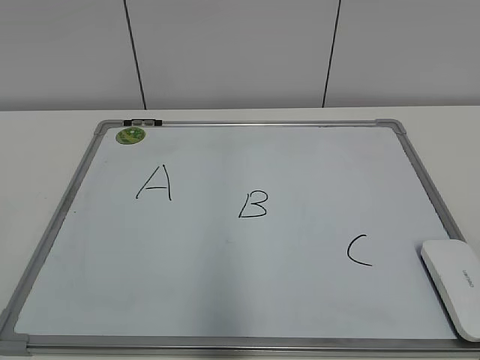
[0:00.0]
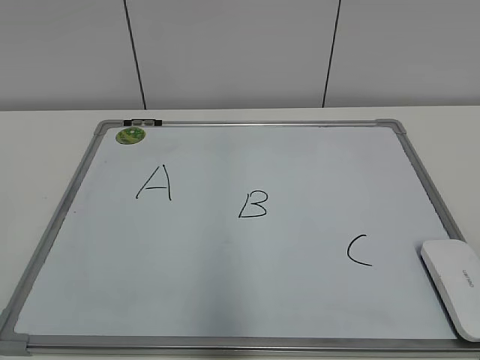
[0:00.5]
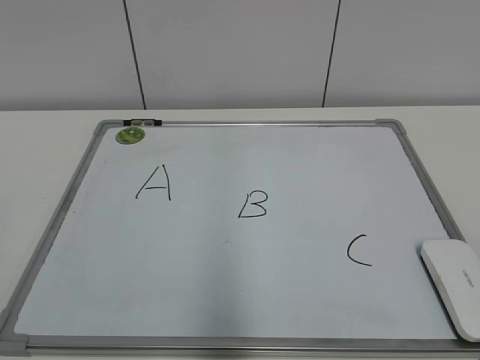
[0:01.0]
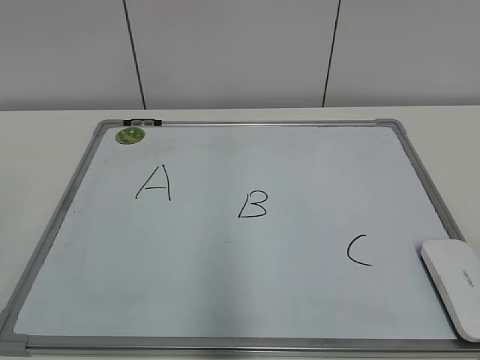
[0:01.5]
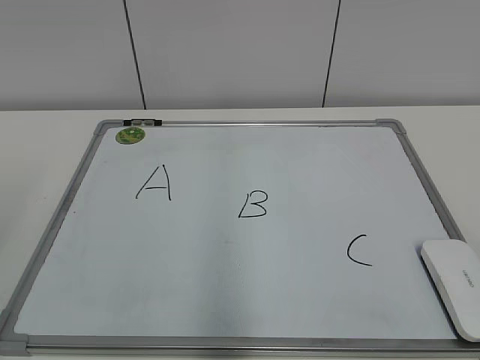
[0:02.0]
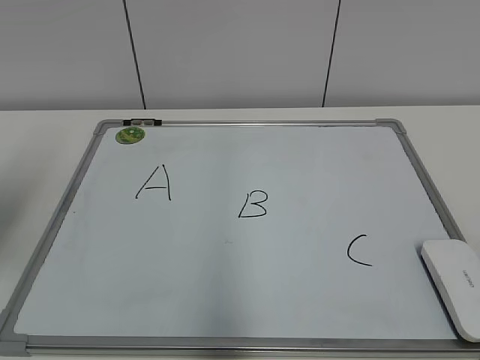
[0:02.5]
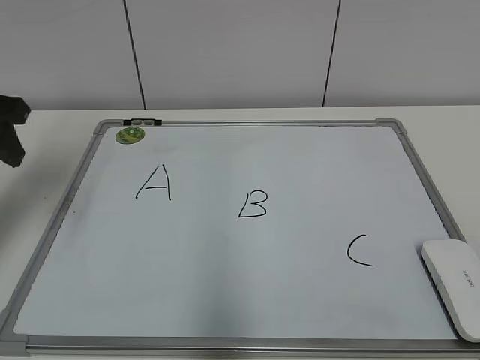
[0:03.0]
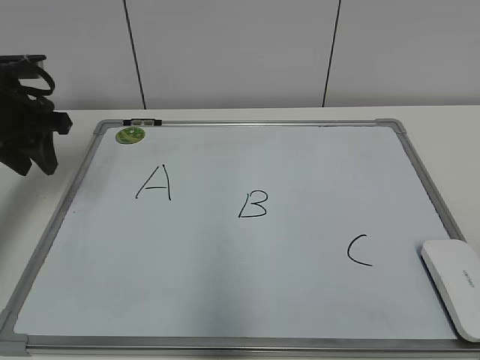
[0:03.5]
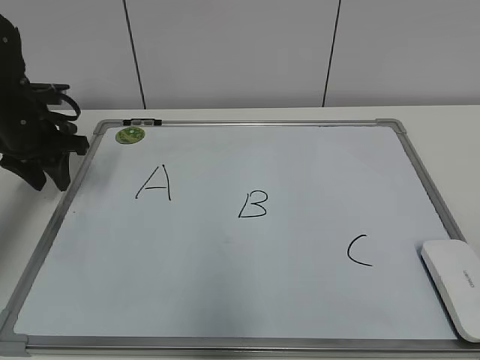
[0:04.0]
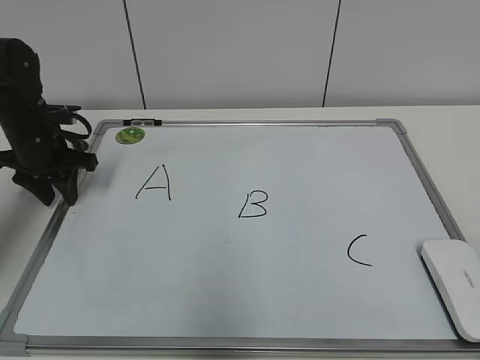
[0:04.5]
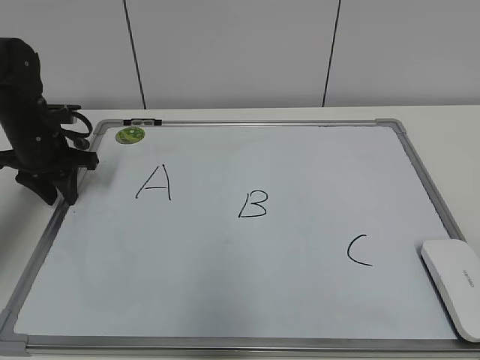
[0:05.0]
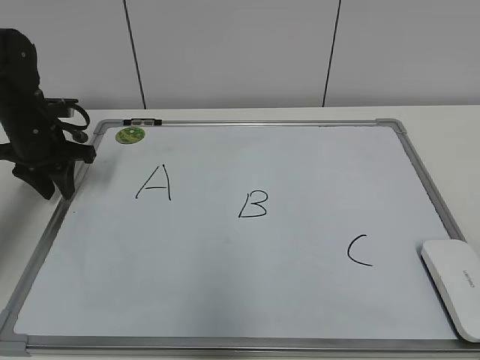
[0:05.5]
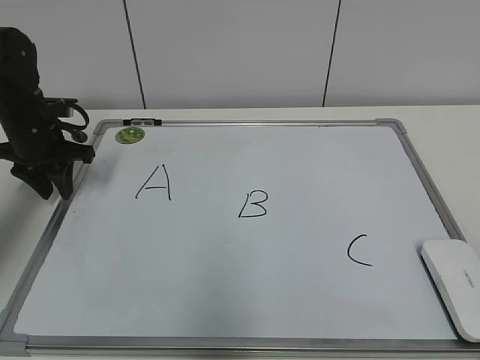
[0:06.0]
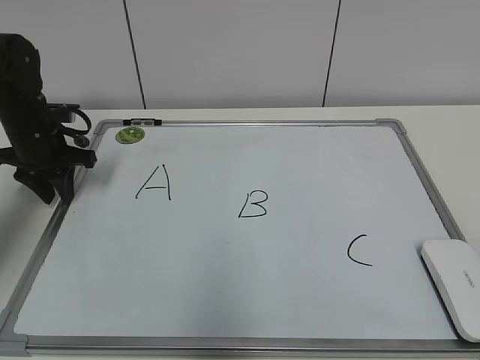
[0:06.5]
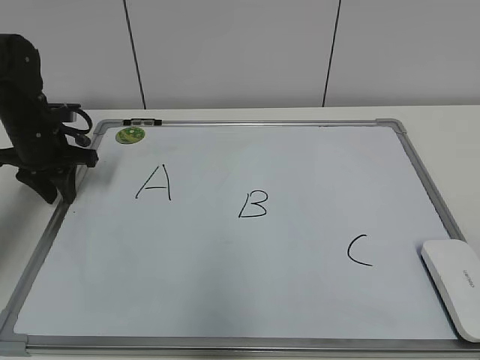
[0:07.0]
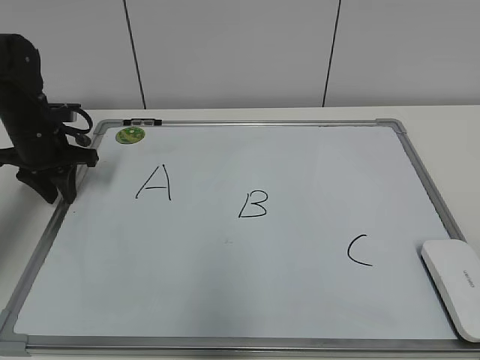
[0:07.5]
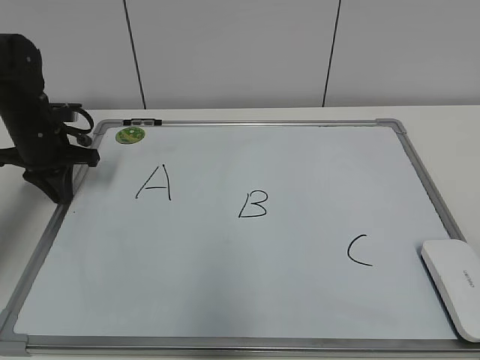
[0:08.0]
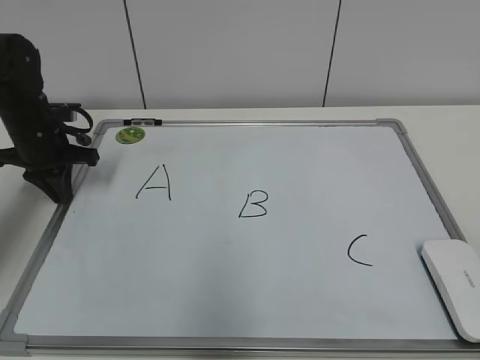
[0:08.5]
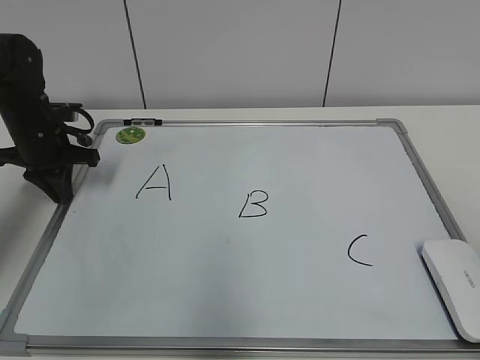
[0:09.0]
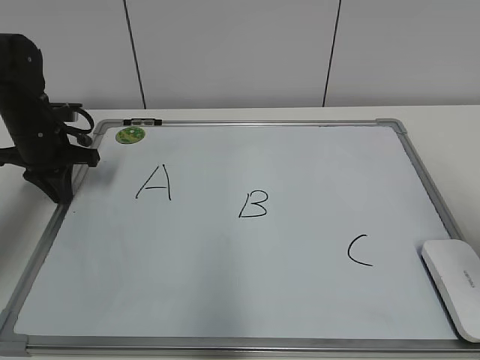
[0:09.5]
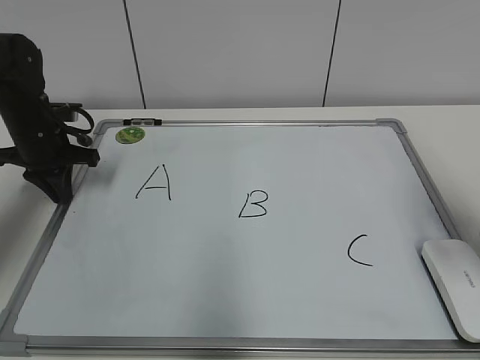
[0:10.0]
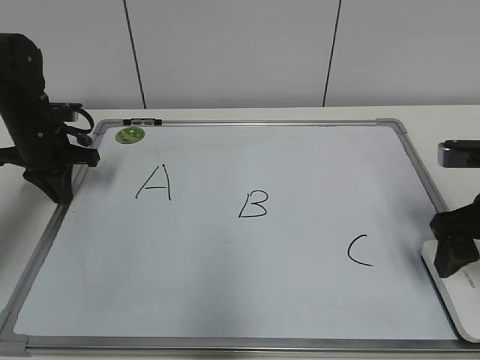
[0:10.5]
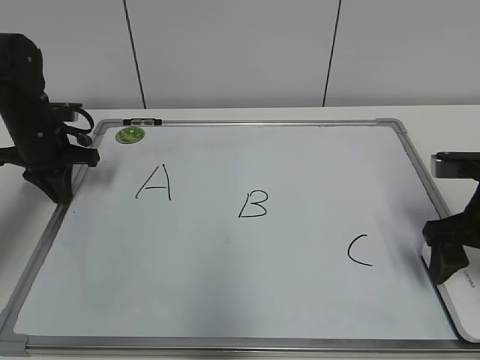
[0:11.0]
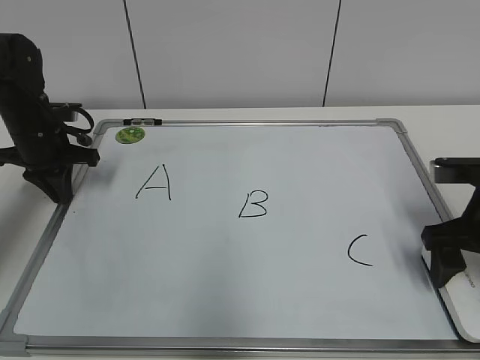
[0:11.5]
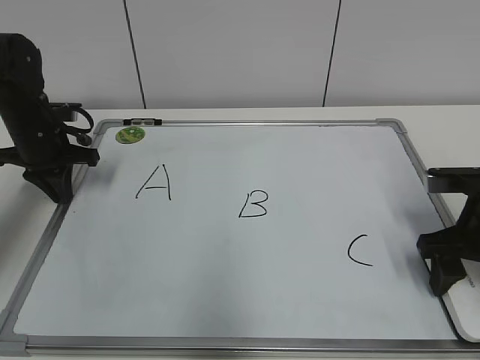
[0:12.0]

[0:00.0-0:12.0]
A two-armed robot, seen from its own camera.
Task of the whole recording: pick up the eraser on the blackboard and erase the letter "B".
Step, 0:00.0 to 0:08.5: Hold the drawing board steady with your left hand.
Step, 0:09.0 to 0:11.5: Grab the eraser with your right hand.
0:02.0 to 0:04.0: The left gripper moves forward, about 30 cm.
0:04.0 to 0:06.0: The grippers move only a little.
0:06.0 to 0:08.0: The left gripper closes up.
0:08.0 to 0:10.0: The right gripper heads forward, covering some 25 cm.
0:10.0 to 0:12.0: The right gripper moves downward, roughly 10 cm, and opens, then closes again.

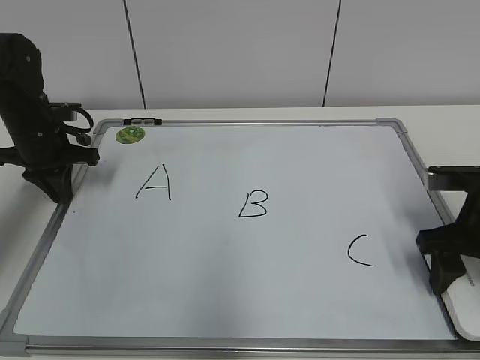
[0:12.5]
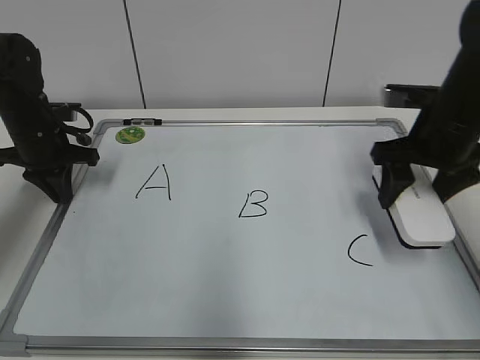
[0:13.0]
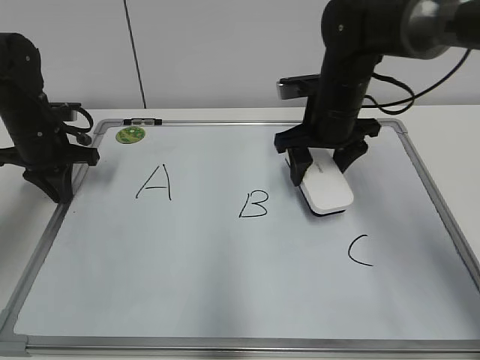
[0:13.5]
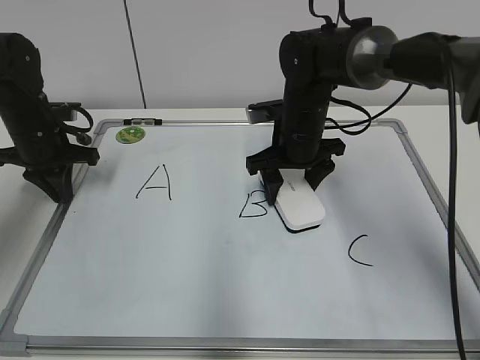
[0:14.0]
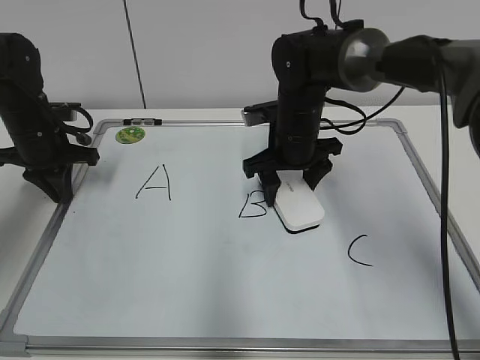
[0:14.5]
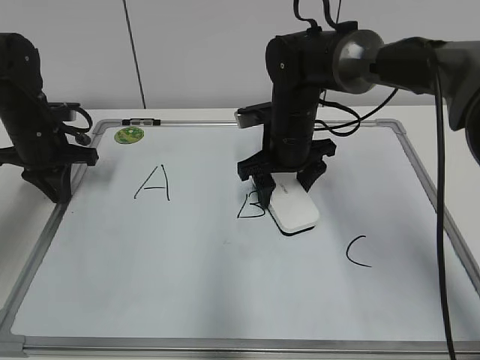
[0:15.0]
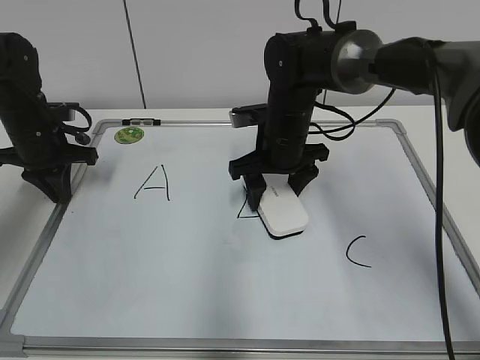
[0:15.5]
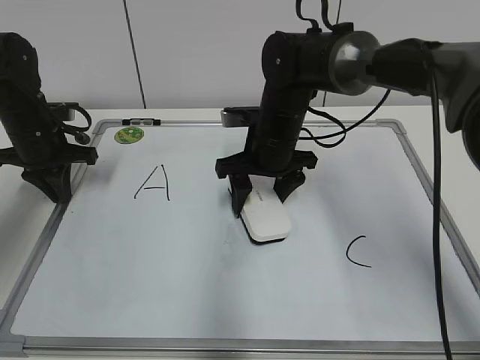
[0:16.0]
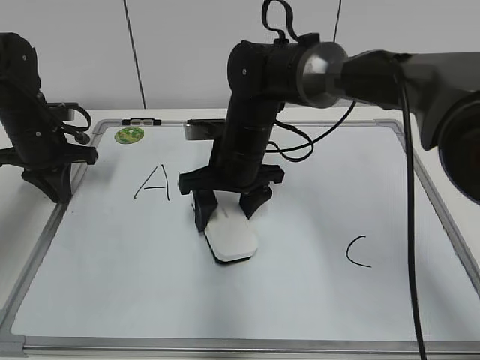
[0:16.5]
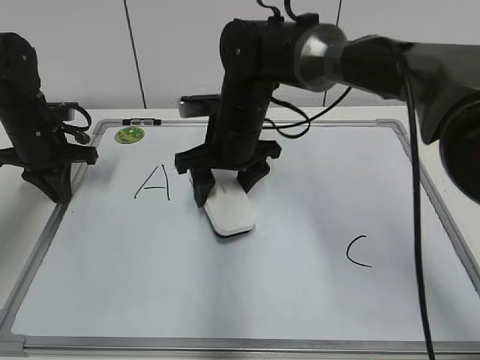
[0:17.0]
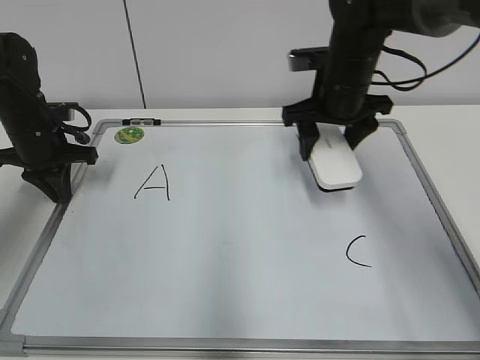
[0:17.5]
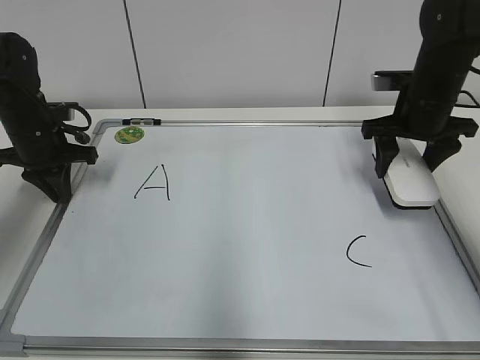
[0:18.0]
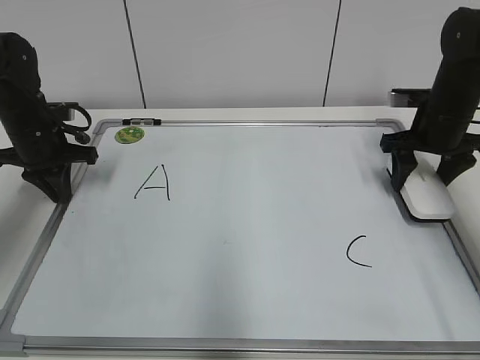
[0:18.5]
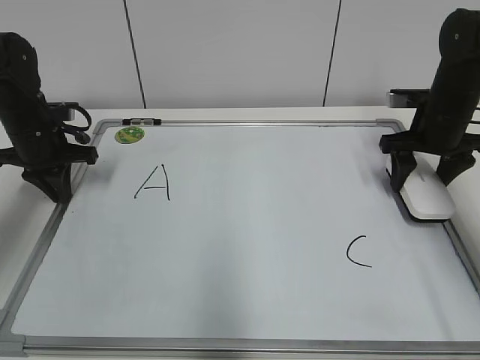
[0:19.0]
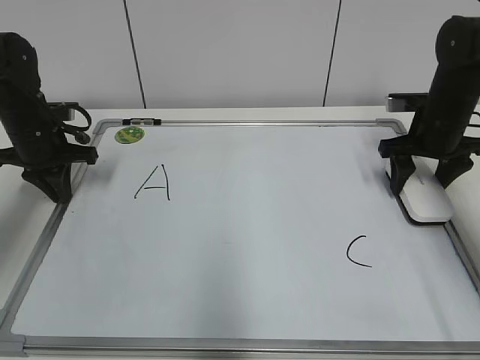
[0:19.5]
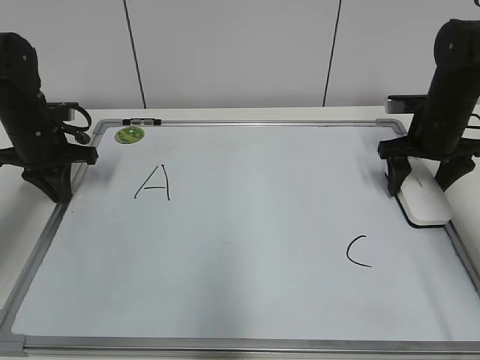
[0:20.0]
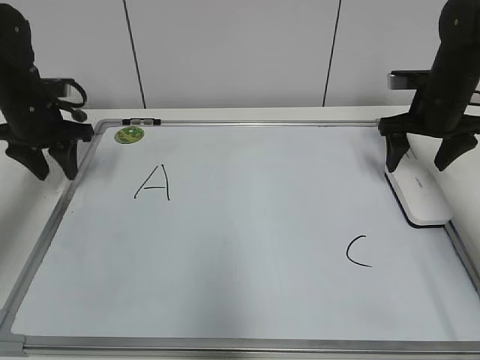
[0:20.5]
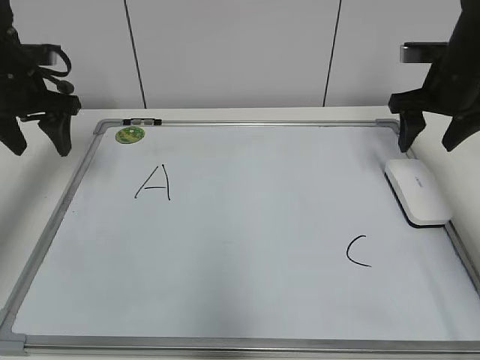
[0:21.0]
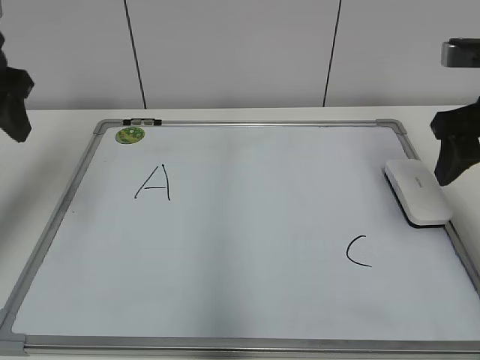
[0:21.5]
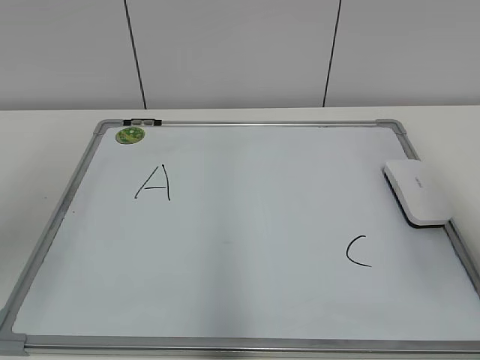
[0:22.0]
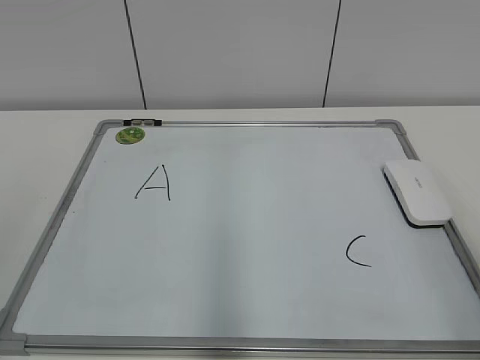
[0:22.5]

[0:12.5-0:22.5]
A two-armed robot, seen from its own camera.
Task of the whole recording: pick up the eraser on the blackboard and erase the letter "B".
Step, 0:12.5 to 0:17.0: Erase the letter B with your right hand.
Step, 0:17.5 to 0:19.0: Put down the eraser with your right hand.
0:12.5 to 0:14.5: The right gripper goes some 25 cm to the left and forward.
0:14.5 to 0:16.5: The right gripper travels to the left by some 5 cm.
0:16.5 to 0:18.5: The right gripper goes some 25 cm to the right.
0:18.5 to 0:20.5: The left gripper opens up, while the right gripper opens up.
0:20.5 to 0:22.5: The left gripper shifts some 40 cm backward and upward, and opens its fingers. Meanwhile the right gripper goes about 35 cm backward, and closes up.

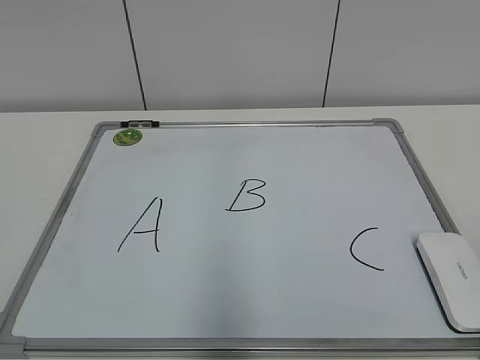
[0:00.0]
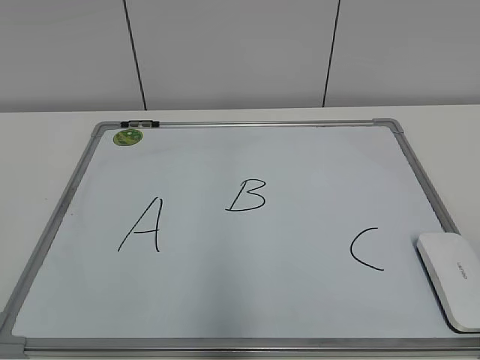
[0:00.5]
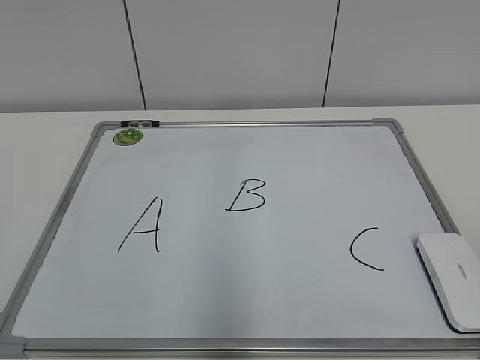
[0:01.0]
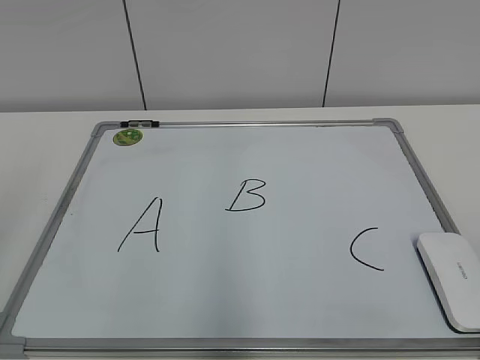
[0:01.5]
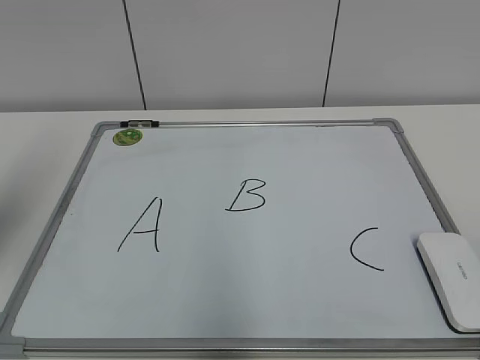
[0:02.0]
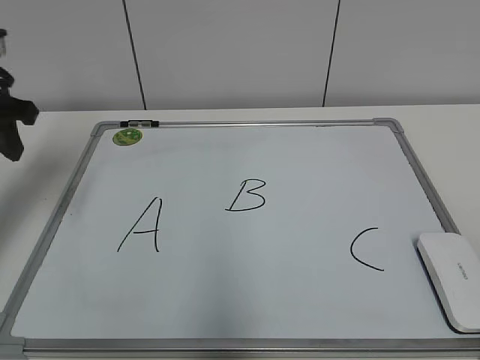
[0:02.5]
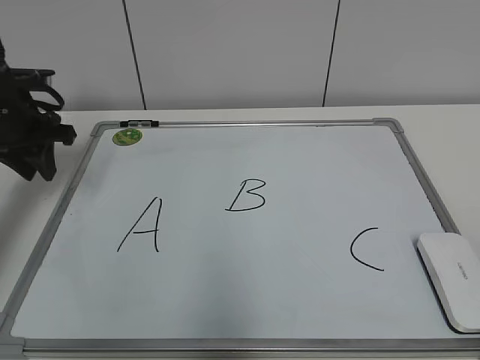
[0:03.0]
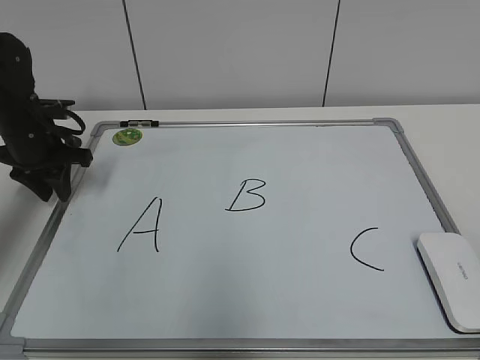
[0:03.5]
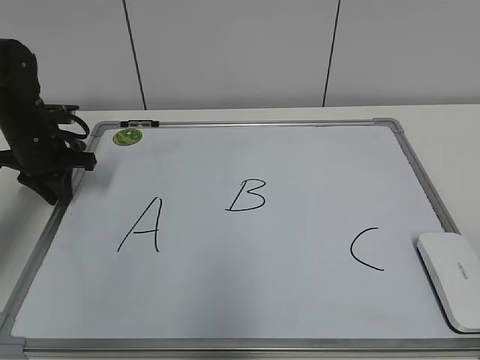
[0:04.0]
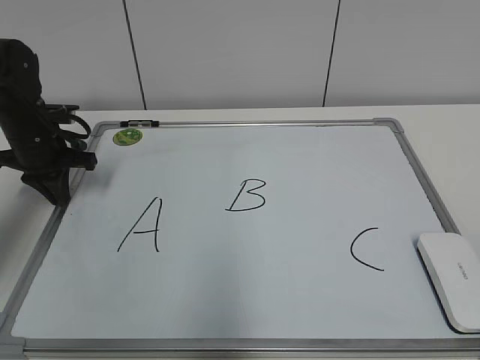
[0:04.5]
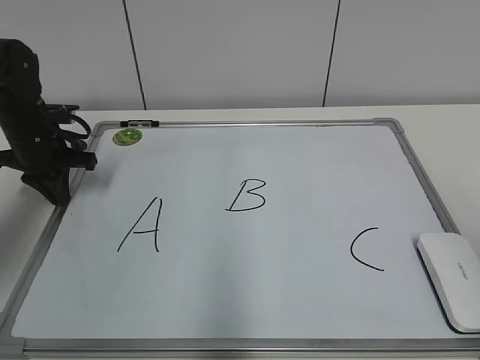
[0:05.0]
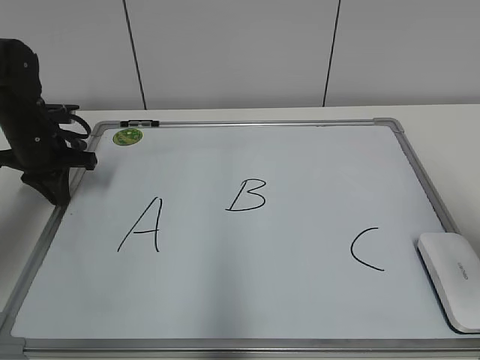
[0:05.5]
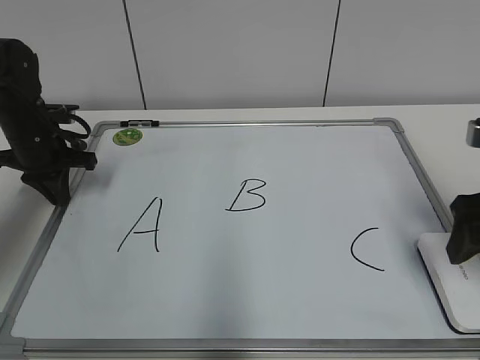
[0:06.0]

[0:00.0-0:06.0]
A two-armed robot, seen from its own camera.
Task of the whole recording: pick up the eraser on the blackboard and erase the letter "B".
Step, 0:00.0 to 0:05.0: Hold the drawing board steady with your left hand.
0:02.0 to 0:04.0: The left gripper is displaced forward and downward by approximately 25 cm.
0:04.0 to 0:06.0: The right gripper goes approximately 25 cm forward, and opens up.
